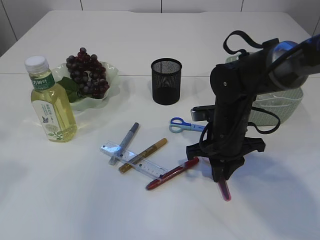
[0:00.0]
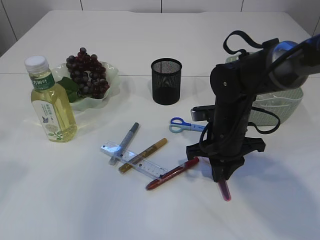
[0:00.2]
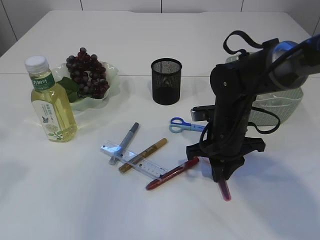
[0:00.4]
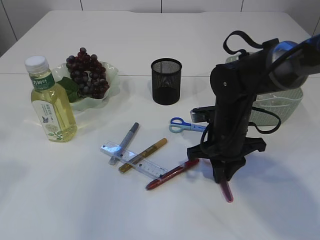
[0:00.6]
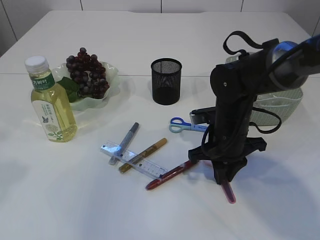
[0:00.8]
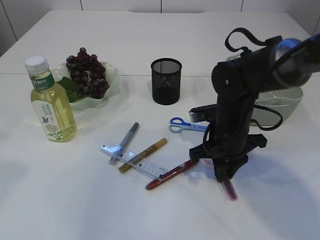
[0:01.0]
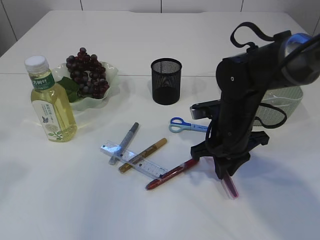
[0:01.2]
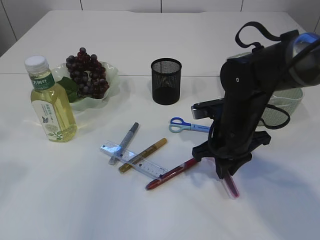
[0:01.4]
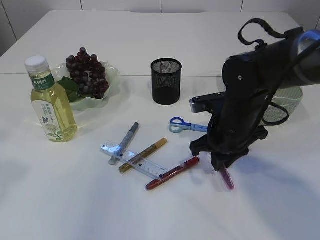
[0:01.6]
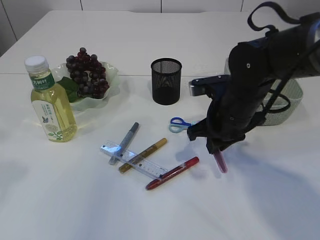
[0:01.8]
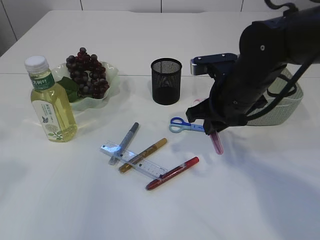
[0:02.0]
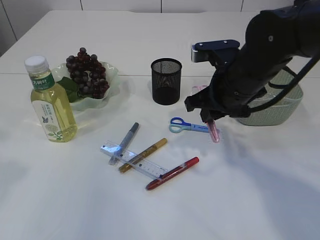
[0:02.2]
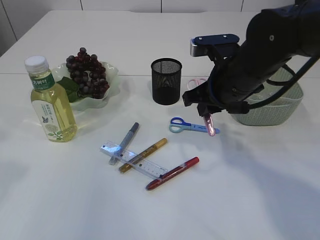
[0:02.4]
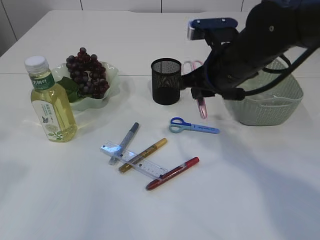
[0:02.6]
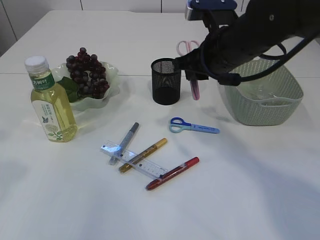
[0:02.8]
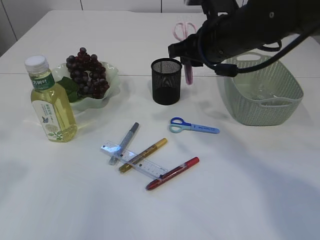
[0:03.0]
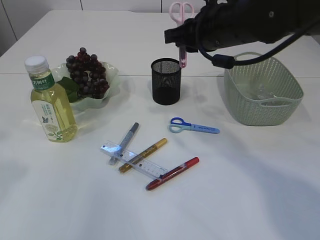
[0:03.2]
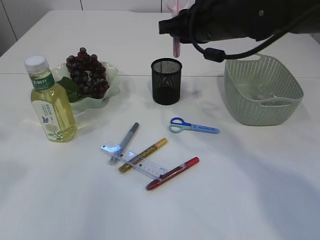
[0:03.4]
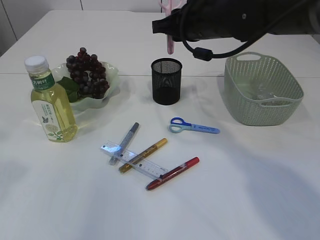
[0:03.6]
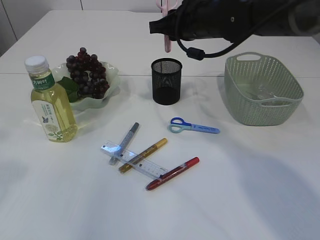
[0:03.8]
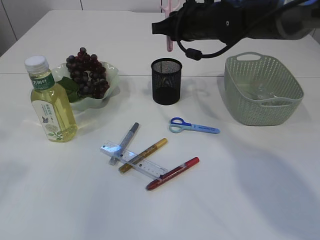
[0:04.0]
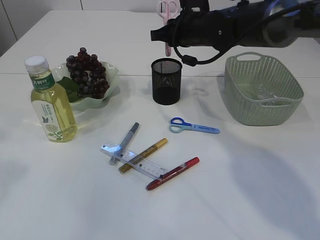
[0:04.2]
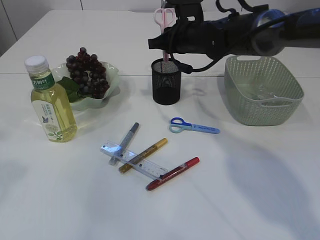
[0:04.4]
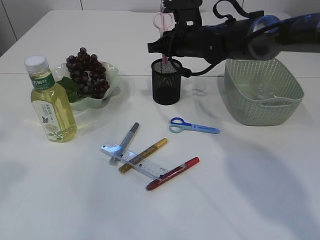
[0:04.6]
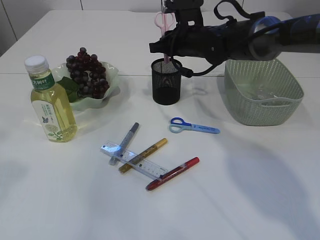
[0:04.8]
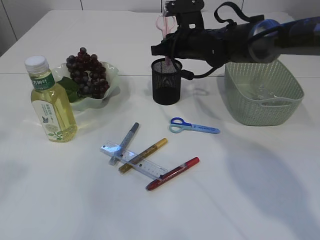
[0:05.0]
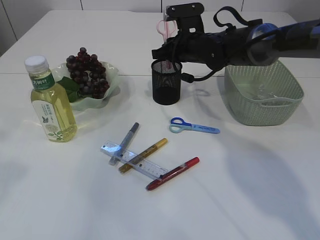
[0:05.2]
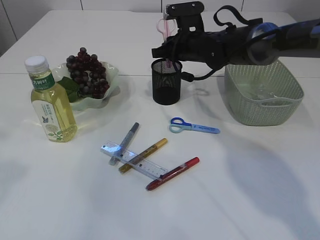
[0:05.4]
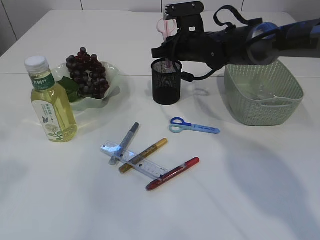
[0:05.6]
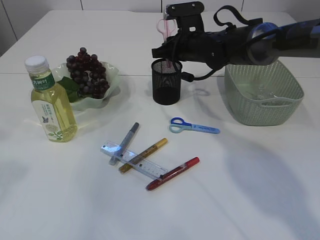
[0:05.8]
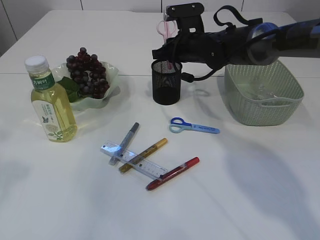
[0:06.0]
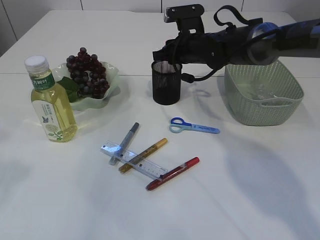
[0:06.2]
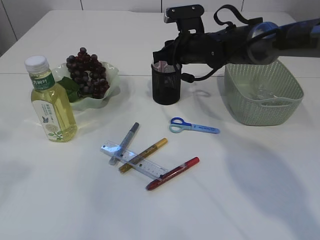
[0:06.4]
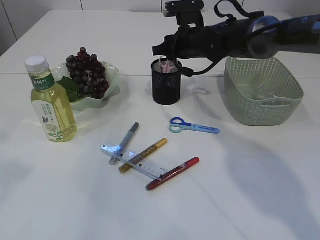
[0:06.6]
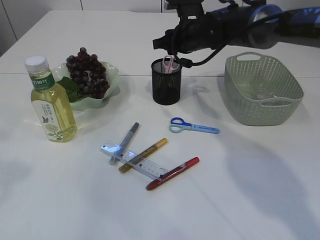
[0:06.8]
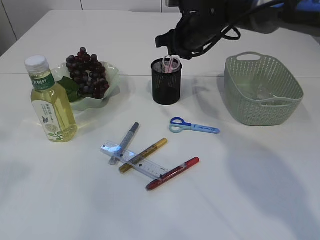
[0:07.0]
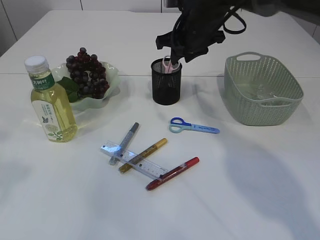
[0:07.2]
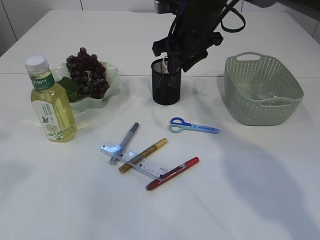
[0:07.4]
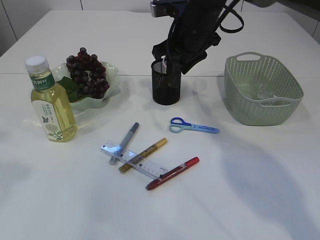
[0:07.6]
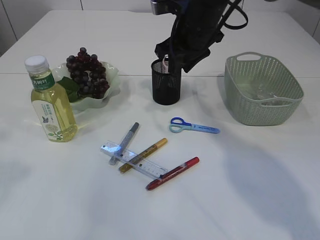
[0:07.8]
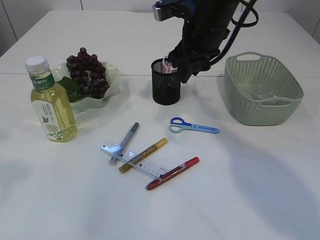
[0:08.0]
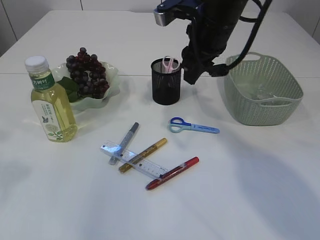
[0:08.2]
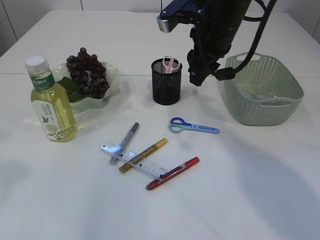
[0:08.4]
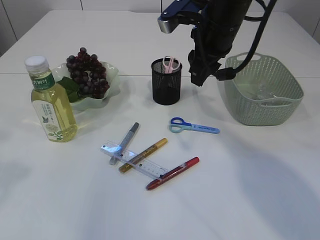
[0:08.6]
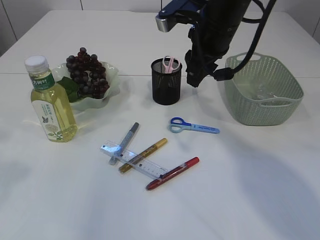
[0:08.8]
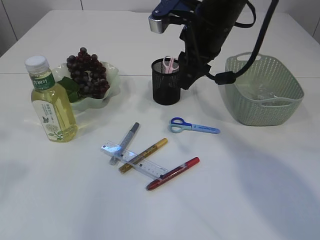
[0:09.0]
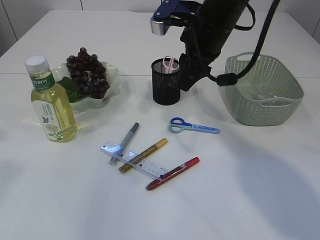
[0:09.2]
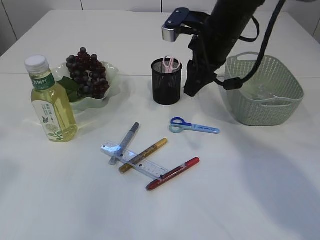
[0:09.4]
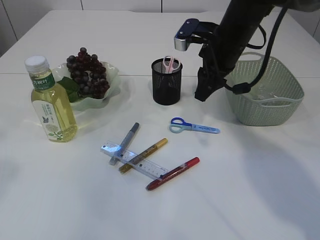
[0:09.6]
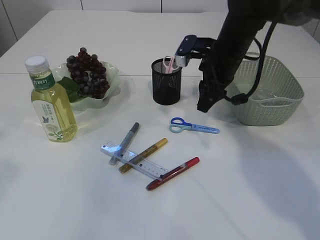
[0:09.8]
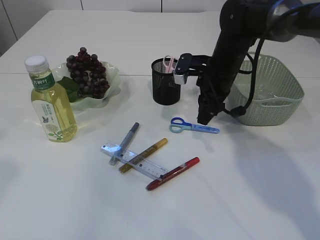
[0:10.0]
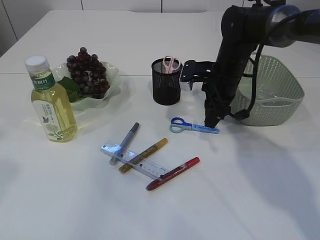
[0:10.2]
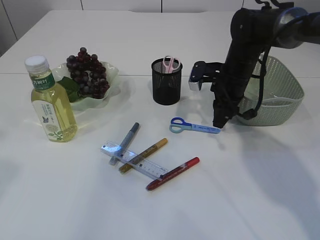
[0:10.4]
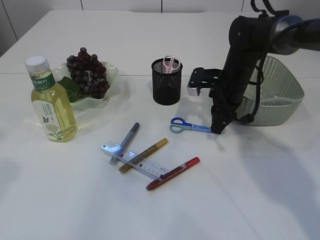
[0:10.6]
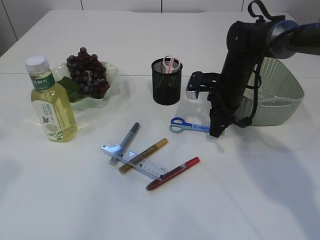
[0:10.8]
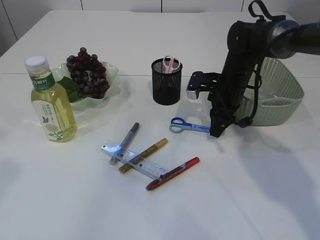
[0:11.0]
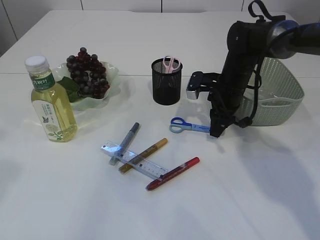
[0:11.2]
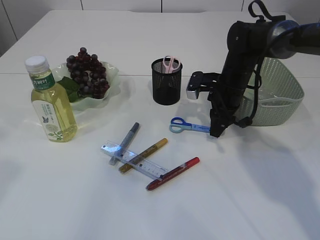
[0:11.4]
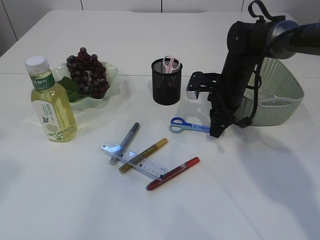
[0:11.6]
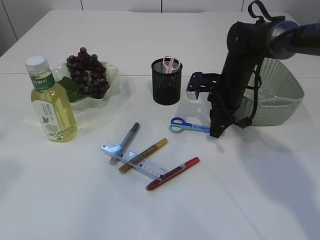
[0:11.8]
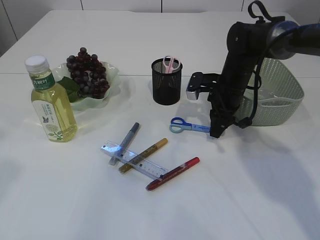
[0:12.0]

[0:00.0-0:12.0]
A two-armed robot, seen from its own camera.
Step, 0:00.0 to 0:02.4: pick up the pink scissors.
Step, 0:02.6 to 0:07.8: Place the pink scissors into the pen holder.
0:00.0 to 0:01.6: There are only small adjustments of the grippers.
0:01.6 to 0:03.0: The right gripper heads upward, covering roughly 15 cm.
0:03.0 to 0:04.4: The right gripper heads forward, covering roughly 10 cm.
0:04.4 to 0:06.0: The grippers move only a little.
0:06.0 to 0:07.6: The right gripper shifts roughly 5 cm upward.
0:07.6 to 0:09.0: The right gripper goes roughly 5 cm backward.
0:09.0 to 0:10.4: The right gripper moves downward, to the right and forward, some 15 cm.
0:10.4 to 0:12.0: There are only small adjustments of the grippers.

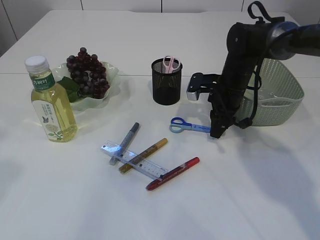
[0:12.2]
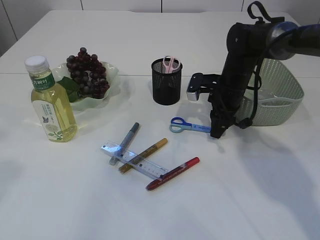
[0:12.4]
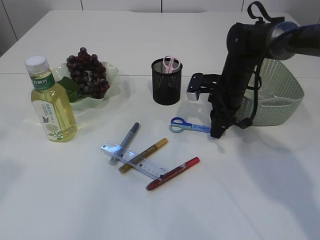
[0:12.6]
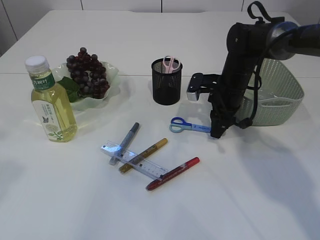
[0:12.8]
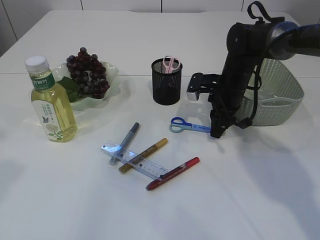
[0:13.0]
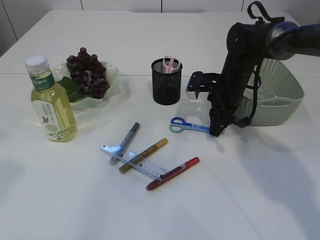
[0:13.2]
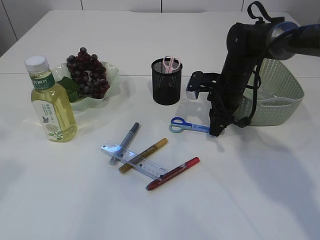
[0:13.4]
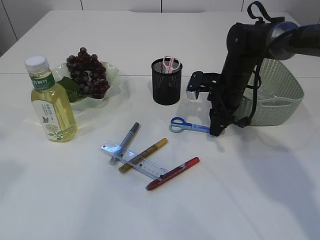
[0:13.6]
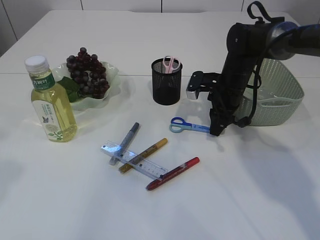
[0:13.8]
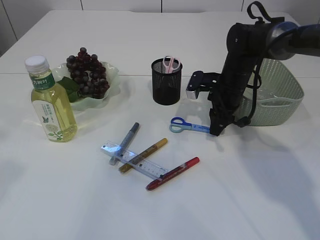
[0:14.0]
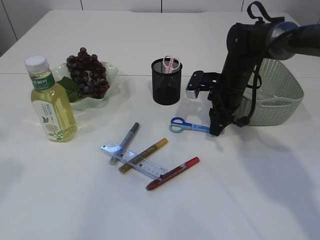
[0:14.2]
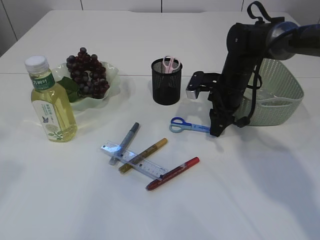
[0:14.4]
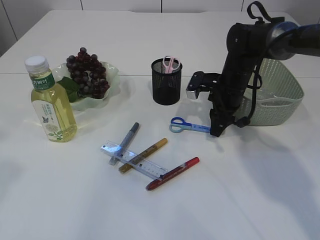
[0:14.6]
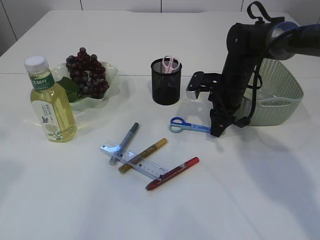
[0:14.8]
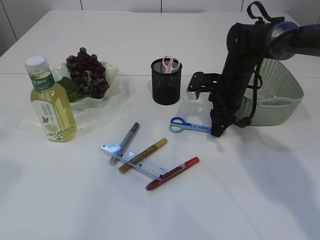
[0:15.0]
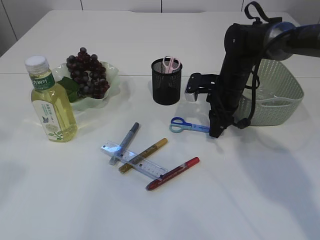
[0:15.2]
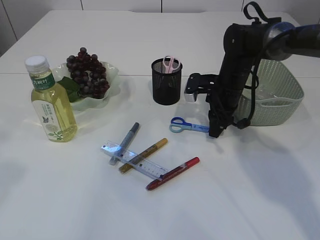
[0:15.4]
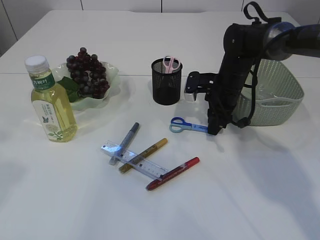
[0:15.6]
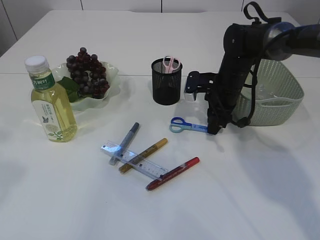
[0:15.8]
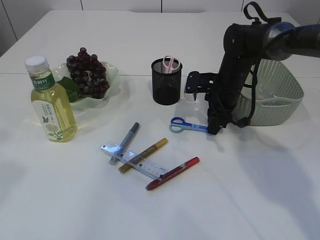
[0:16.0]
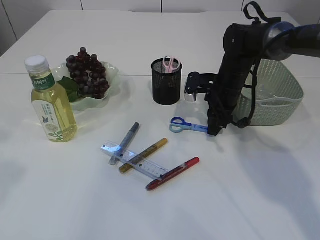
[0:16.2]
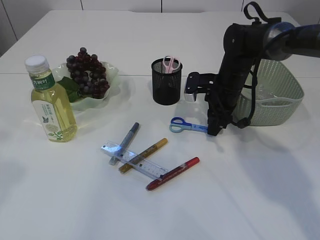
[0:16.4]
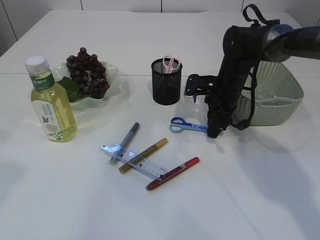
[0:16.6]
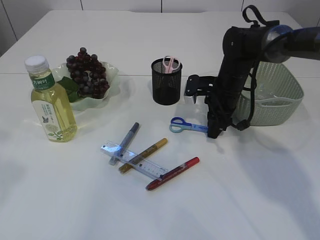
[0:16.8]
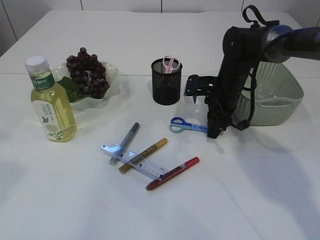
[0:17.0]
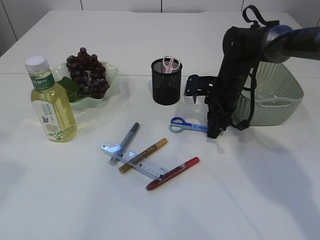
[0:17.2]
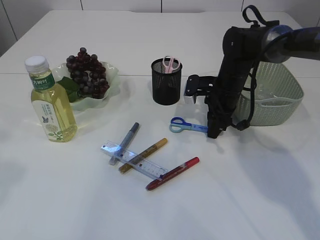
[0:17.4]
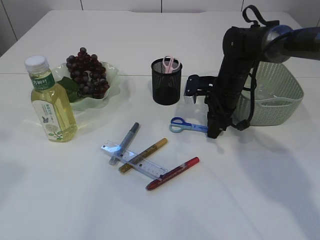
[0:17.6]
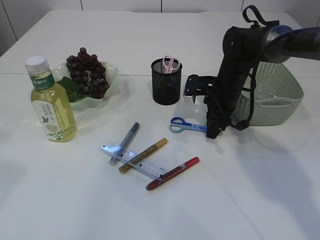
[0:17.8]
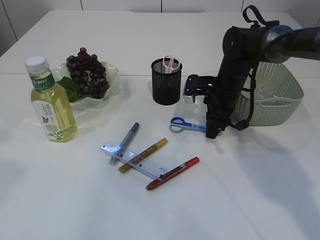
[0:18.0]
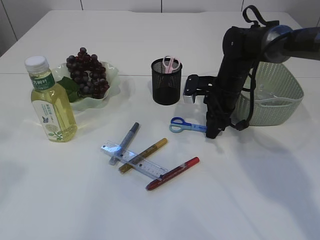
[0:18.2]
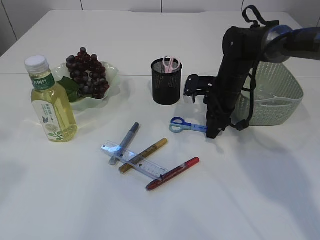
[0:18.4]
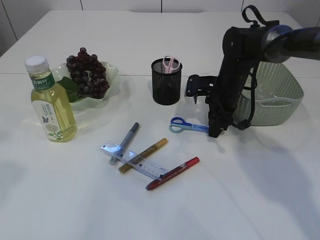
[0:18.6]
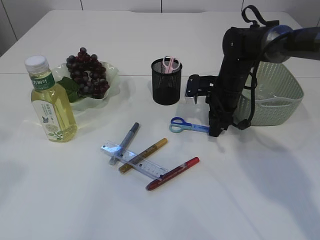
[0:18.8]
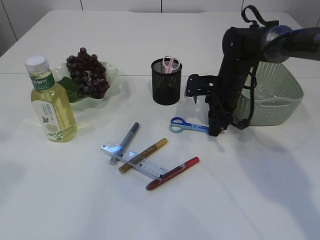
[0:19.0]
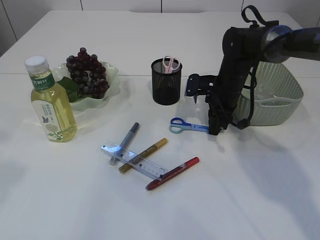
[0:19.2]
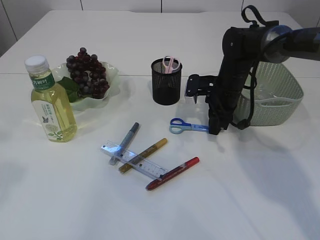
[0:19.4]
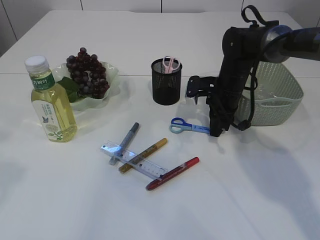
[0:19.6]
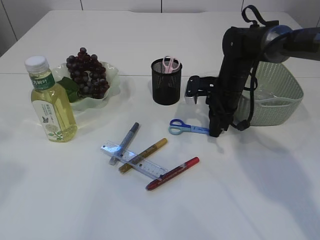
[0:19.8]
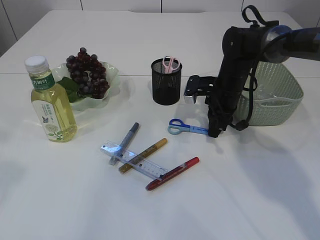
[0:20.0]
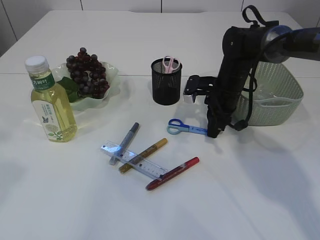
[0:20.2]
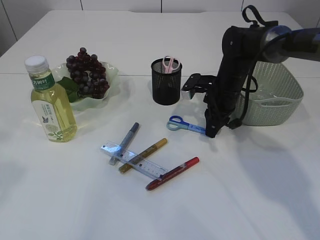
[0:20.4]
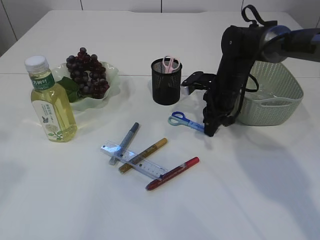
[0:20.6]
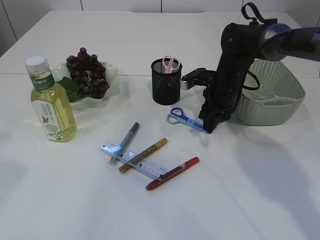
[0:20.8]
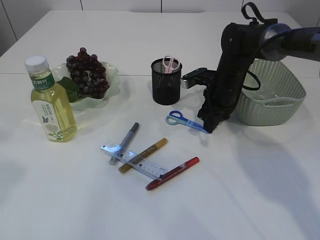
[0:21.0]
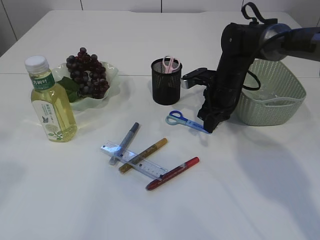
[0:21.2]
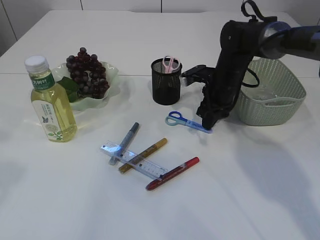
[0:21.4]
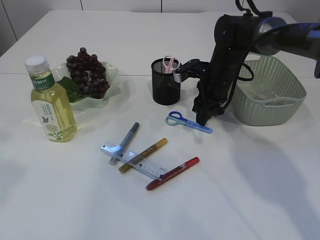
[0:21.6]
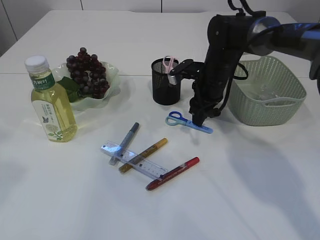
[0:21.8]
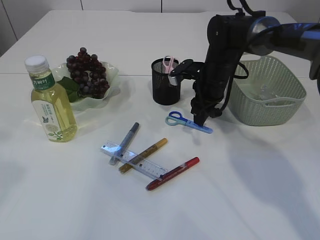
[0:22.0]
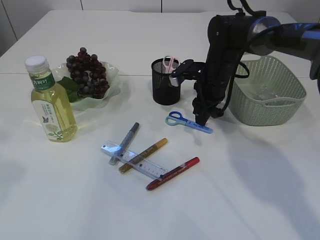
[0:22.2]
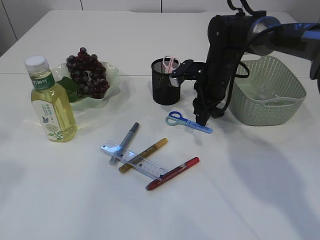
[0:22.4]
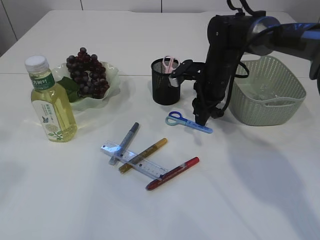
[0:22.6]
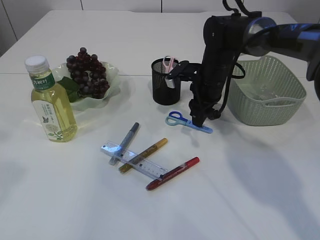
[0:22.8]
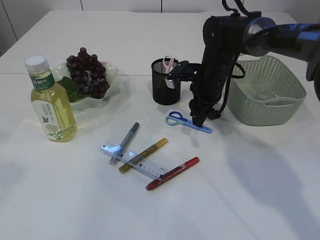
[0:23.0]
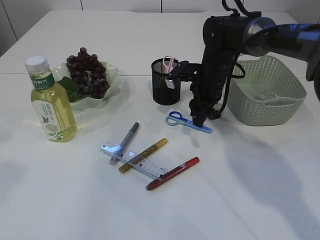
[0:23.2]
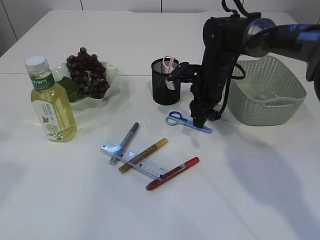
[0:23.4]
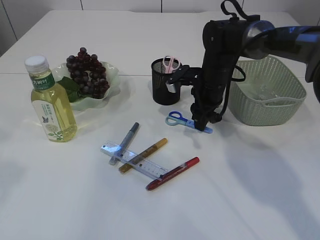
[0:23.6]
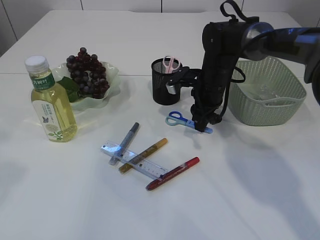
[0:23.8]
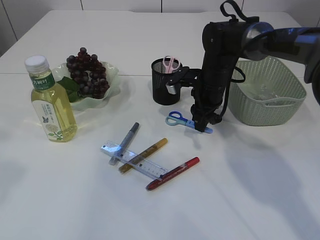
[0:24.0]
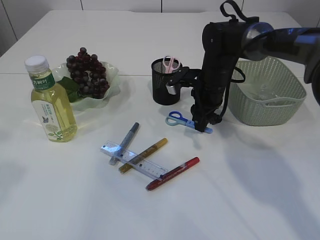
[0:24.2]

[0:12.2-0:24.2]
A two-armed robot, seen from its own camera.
0:12.2 to 0:15.2: Both grippers stay about where they are.
0:15.2 to 0:19.8: The two grippers keep their place.
0:21.2 to 0:22.6: The right gripper opens its fingers.
0:22.6 to 0:24.2: Both grippers stay about where they are.
